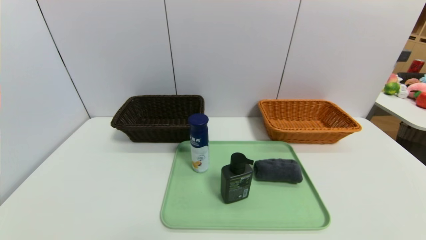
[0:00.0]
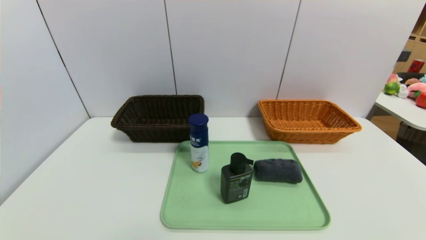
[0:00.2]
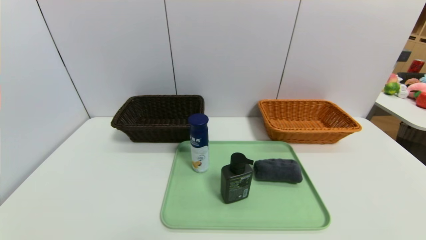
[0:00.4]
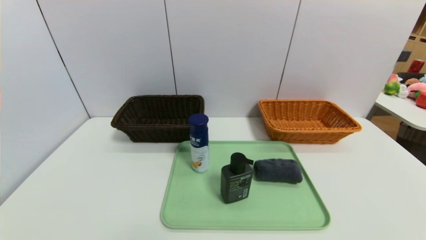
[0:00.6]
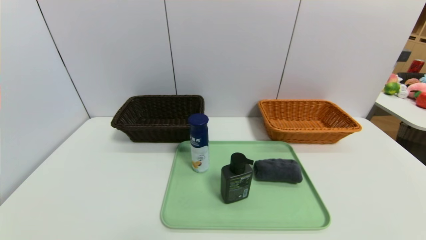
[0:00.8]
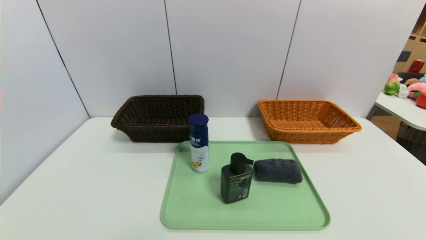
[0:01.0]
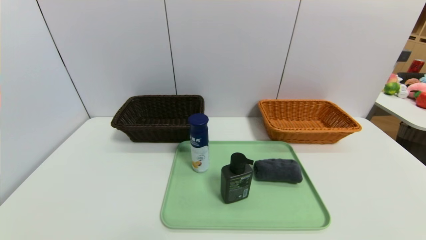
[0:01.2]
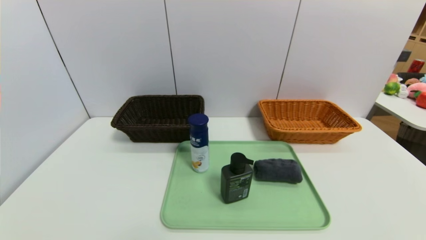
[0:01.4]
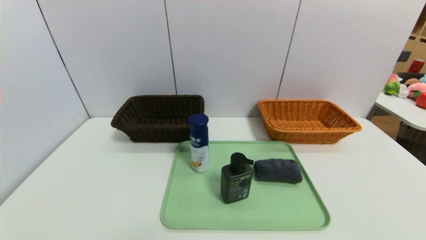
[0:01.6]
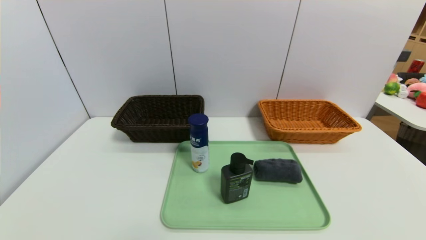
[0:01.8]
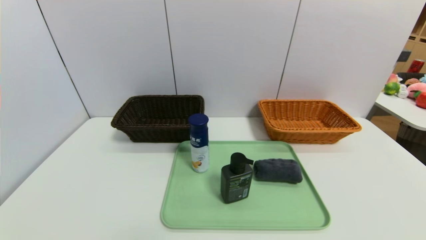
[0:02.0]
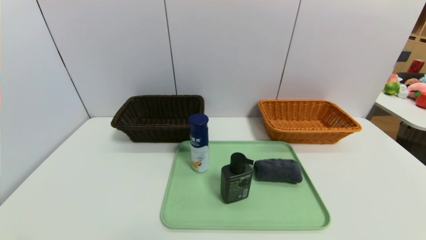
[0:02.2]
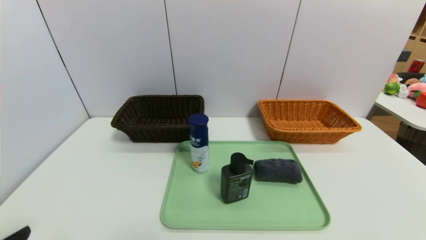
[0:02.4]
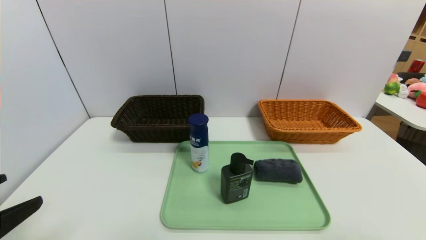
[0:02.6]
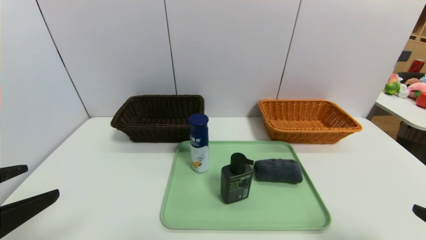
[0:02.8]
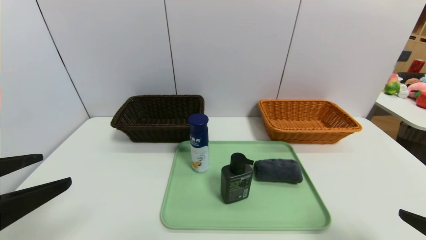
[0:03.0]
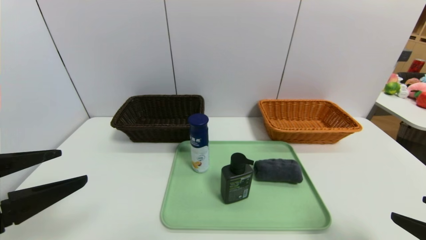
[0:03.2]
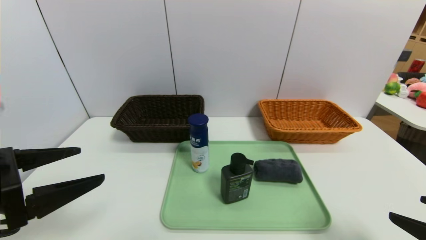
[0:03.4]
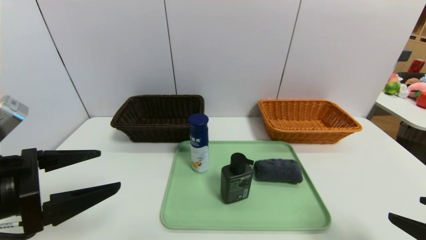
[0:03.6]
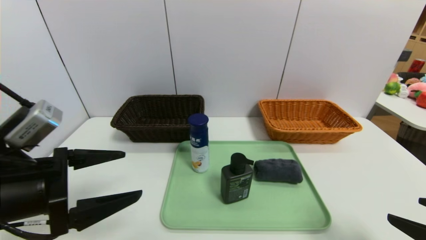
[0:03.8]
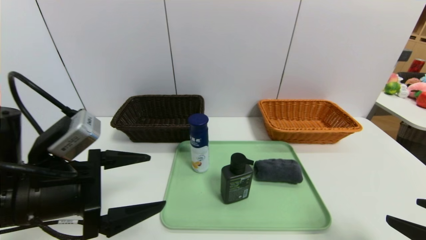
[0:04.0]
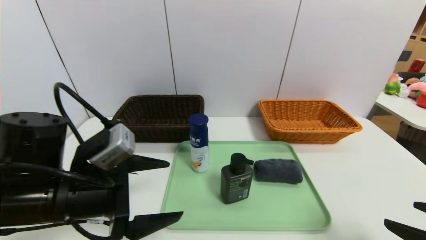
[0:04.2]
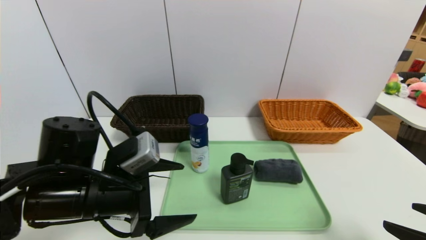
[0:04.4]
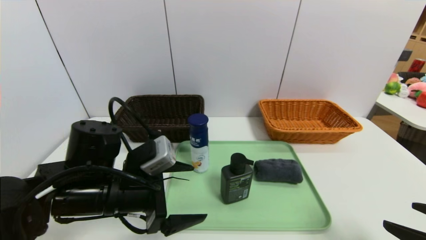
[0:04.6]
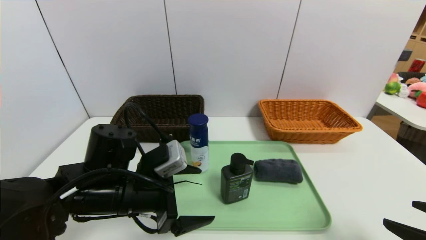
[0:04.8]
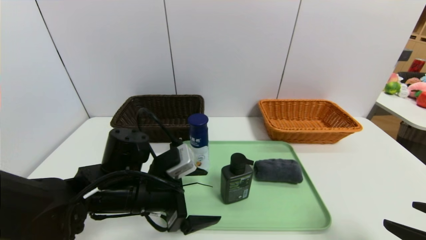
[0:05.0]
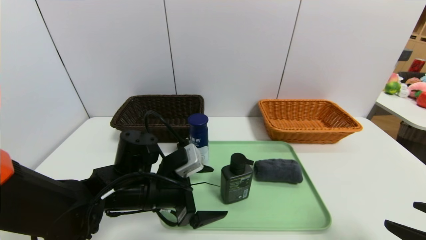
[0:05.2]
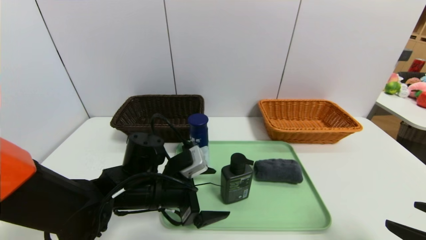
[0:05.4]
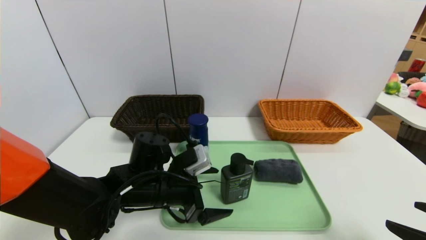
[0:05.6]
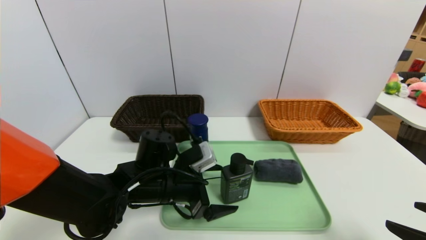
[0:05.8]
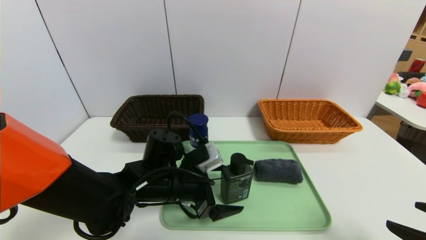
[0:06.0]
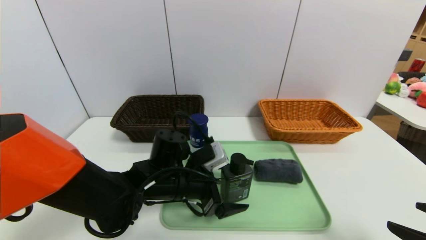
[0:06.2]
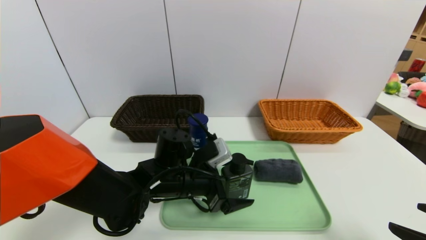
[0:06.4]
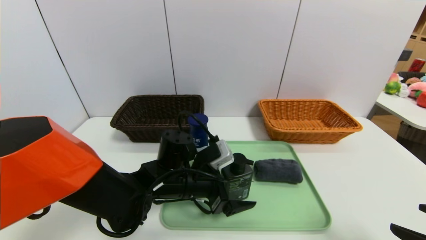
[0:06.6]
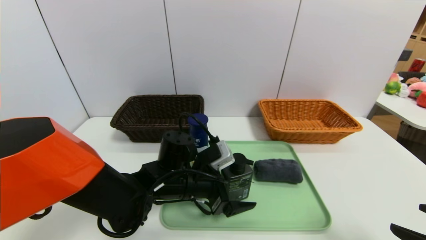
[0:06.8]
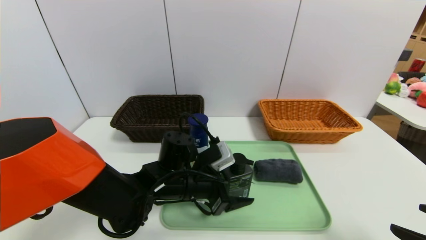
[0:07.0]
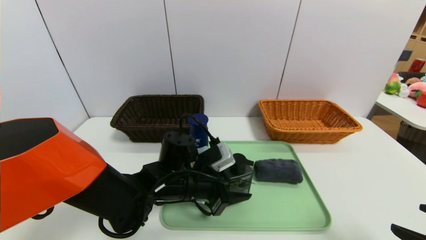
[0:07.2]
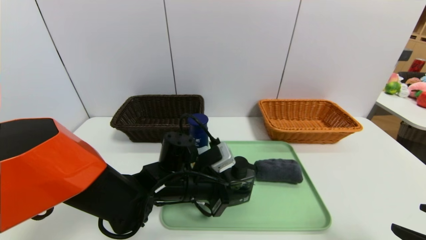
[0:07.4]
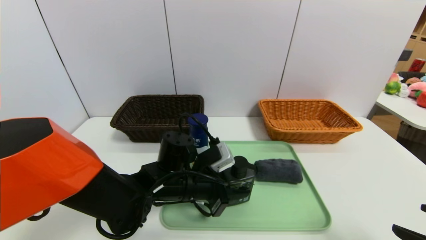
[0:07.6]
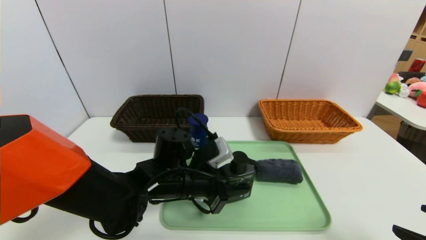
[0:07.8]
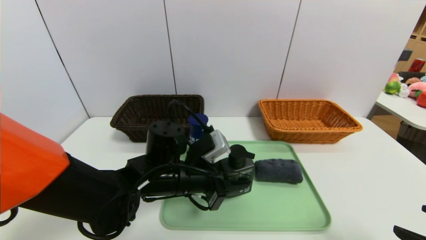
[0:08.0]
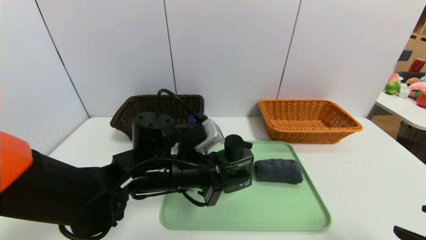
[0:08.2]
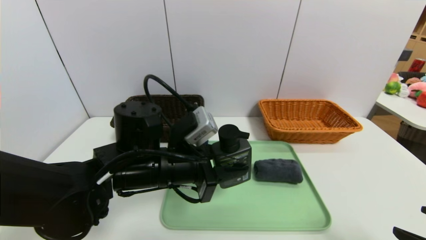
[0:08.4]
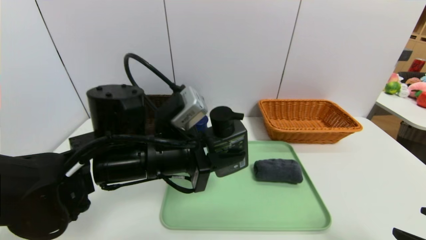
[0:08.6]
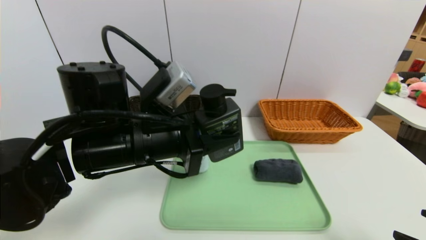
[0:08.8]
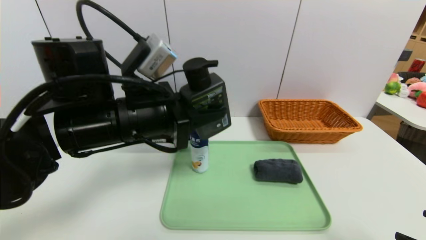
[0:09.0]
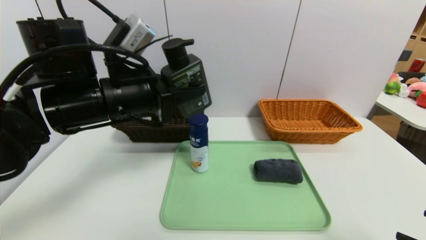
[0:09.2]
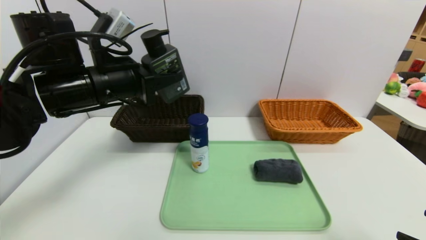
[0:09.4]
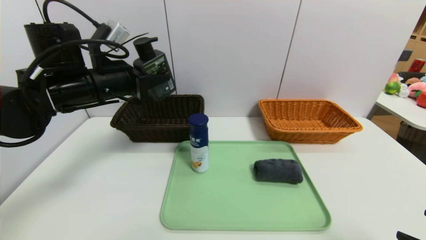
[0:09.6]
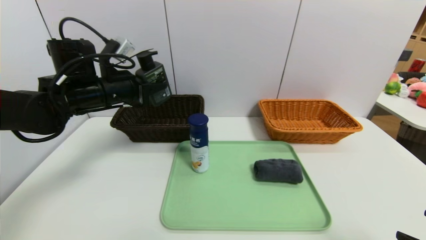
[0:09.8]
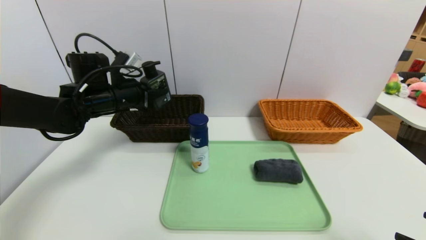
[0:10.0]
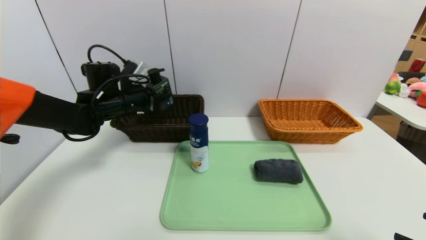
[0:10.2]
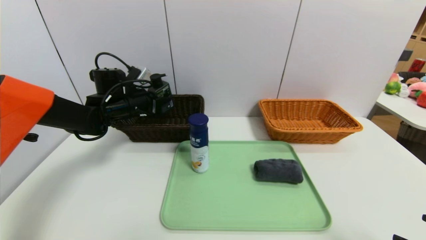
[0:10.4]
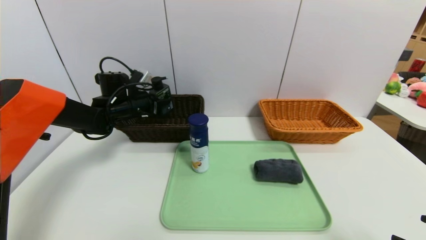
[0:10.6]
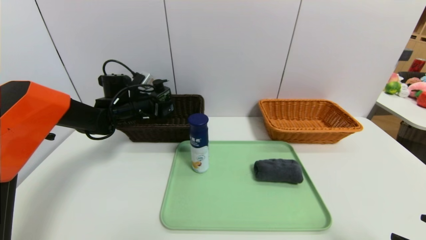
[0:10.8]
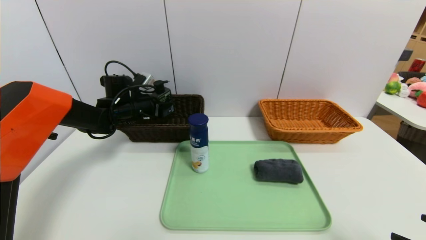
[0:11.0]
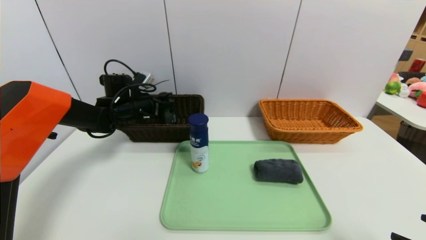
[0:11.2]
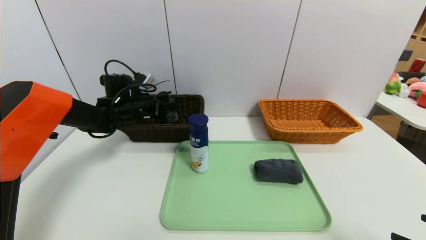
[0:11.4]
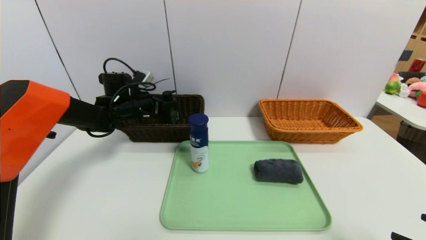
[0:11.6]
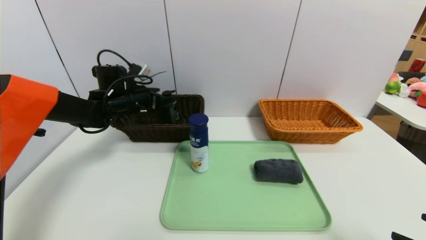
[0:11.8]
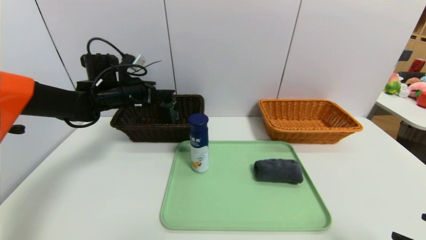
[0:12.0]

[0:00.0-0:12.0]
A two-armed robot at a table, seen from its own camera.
Task of the whole recording: place the food in the right basket with the right gripper, and place the non food items in the left basket with the left gripper.
Step, 0:00.0 to 0:11.8: Grasp the hard cleanser and put it in the left basket.
0:01.6 to 0:03.0: The left gripper moves upward and forward, about 20 cm. The right gripper heads upward and forward, covering roughly 15 cm.
0:03.0 to 0:04.4: The left gripper heads to the right, forward and downward, covering about 20 cm.
0:04.4 to 0:06.0: The left gripper heads to the right, downward and forward, covering approximately 10 cm.
0:06.0 to 0:07.6: The left gripper closes its fingers.
0:07.6 to 0:09.0: The left gripper moves upward and to the left, about 20 cm.
0:09.0 to 0:10.4: The left gripper travels forward, to the left and downward by some 25 cm.
0:10.4 to 0:12.0: The left gripper opens its fingers.

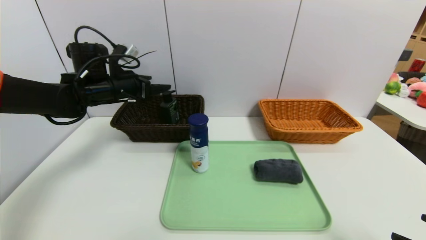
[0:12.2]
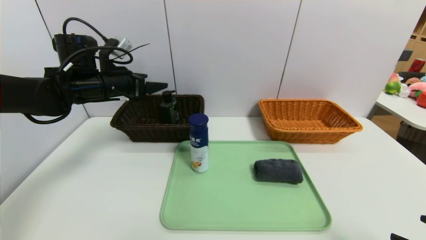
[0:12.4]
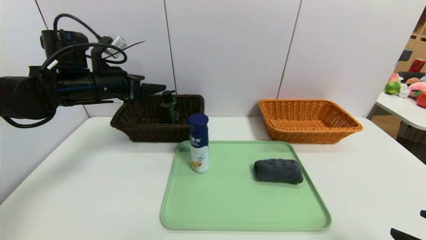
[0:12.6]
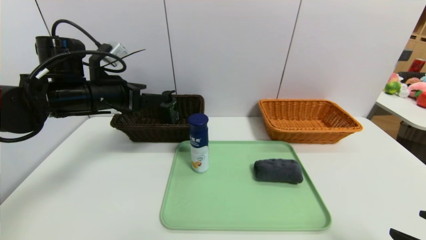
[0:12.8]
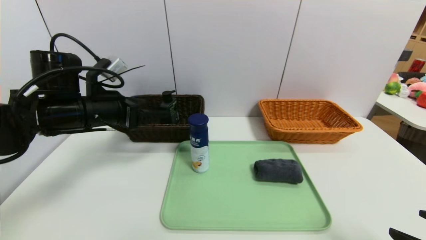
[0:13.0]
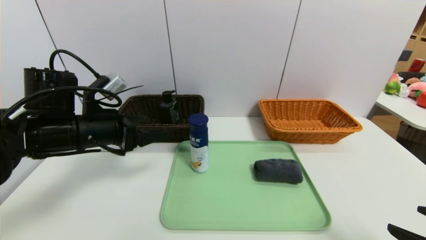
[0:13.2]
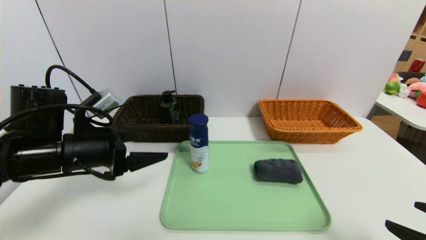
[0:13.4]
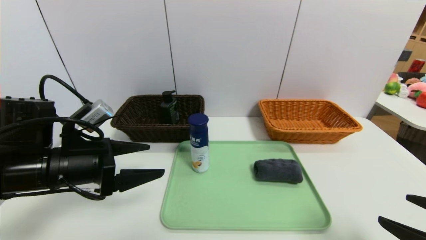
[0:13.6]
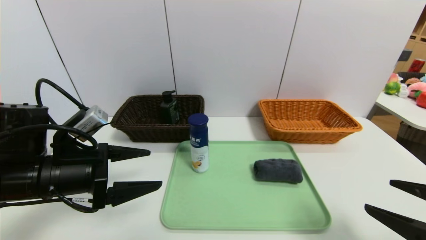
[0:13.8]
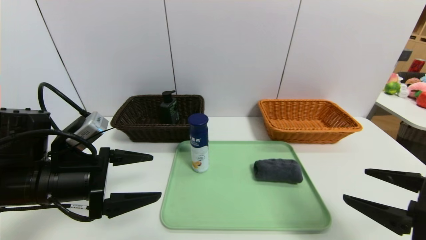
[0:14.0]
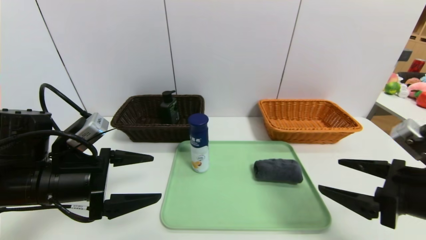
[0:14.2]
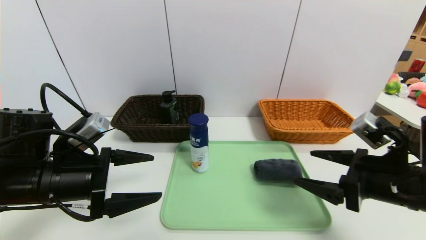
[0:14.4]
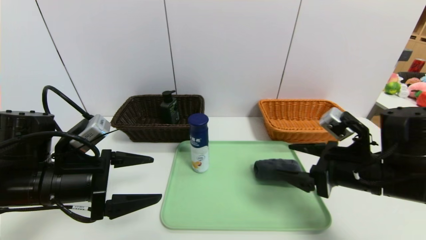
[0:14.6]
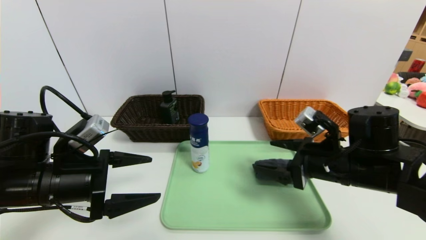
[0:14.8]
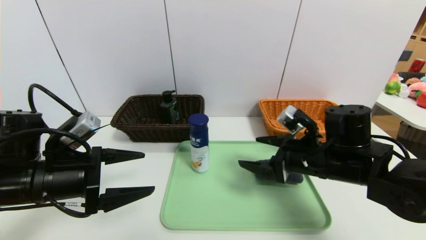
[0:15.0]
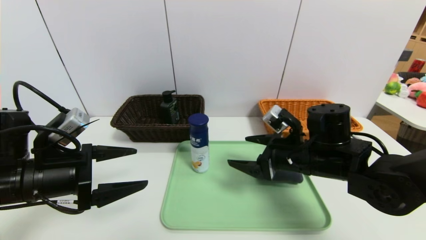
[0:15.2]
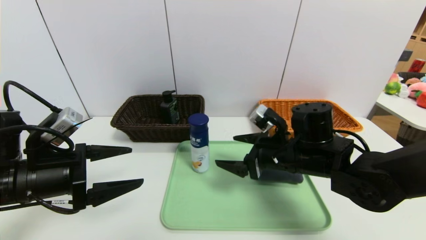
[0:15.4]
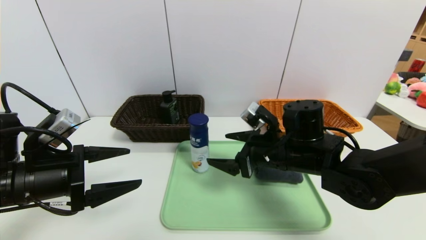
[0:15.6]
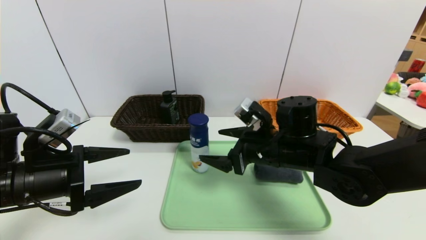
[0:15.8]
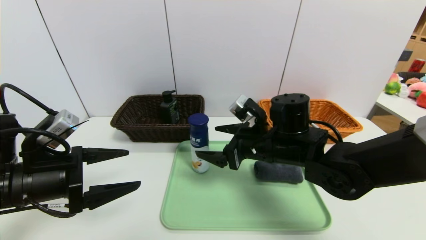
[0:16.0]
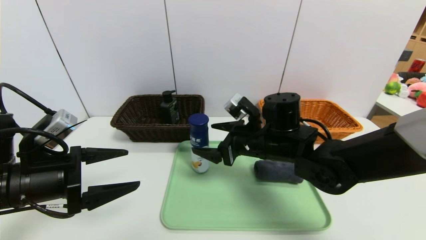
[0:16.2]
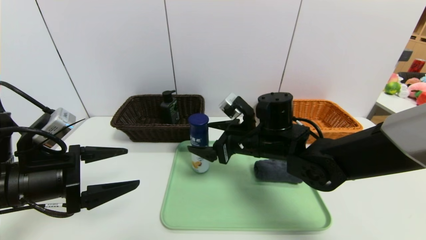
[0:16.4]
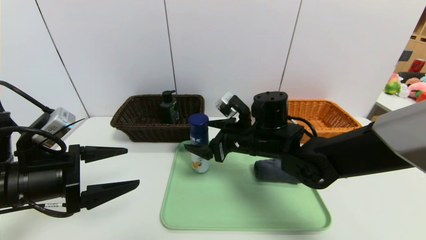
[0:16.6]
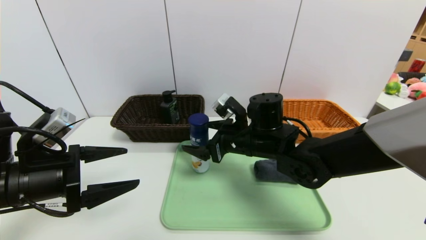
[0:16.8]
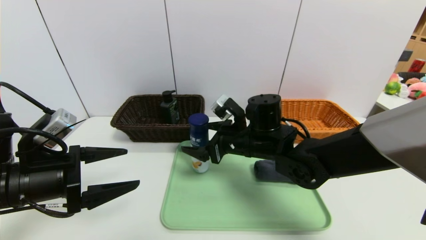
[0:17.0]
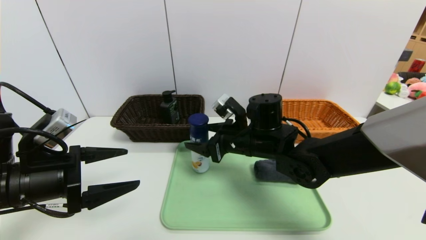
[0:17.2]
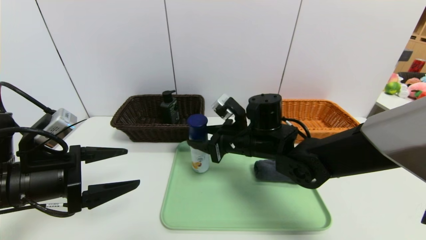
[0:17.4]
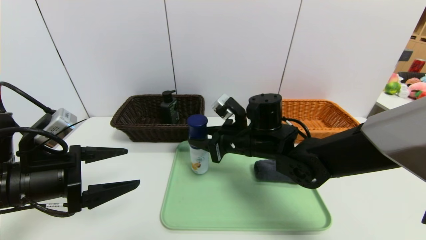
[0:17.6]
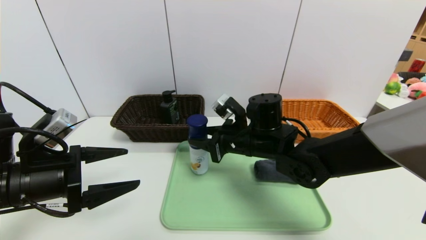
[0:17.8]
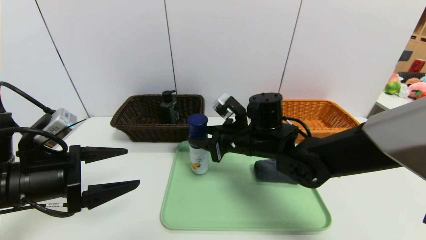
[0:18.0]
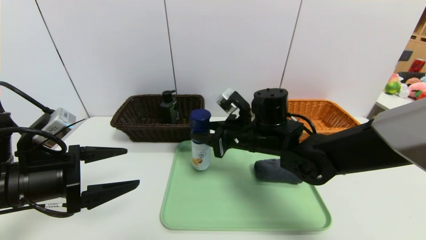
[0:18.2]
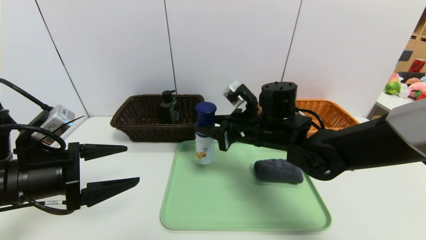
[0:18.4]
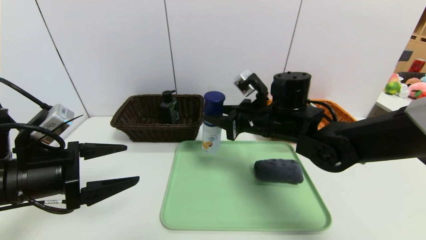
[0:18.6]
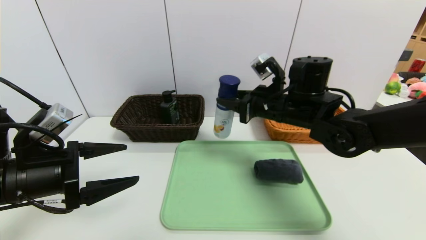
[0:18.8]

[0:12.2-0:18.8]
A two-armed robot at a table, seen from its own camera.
Task of the whole recording: place the food in the right basket with the right gripper, and place the non food items in the left basket with the left gripper.
0:12.2 to 0:13.8: The left gripper moves backward, about 20 cm; the right gripper changes place by roughly 5 cm.
0:13.8 to 0:15.4: The right gripper moves forward and to the left, approximately 25 cm.
0:15.4 to 0:17.2: The right gripper travels to the left by about 5 cm, and closes.
0:17.2 to 0:18.8: The right gripper shifts some 10 cm upward and to the right, and closes up.
